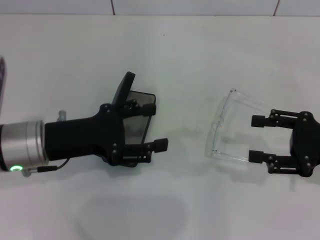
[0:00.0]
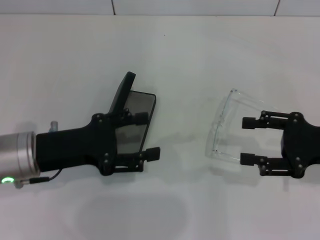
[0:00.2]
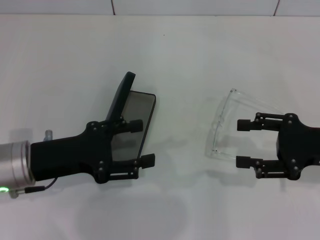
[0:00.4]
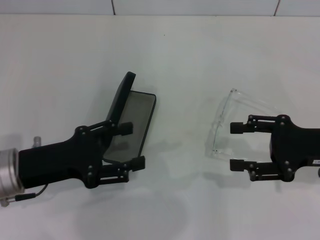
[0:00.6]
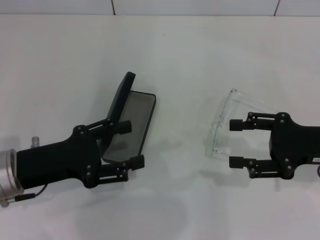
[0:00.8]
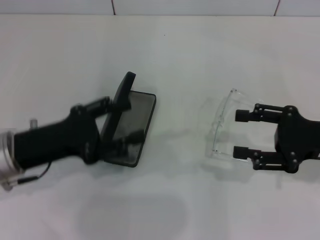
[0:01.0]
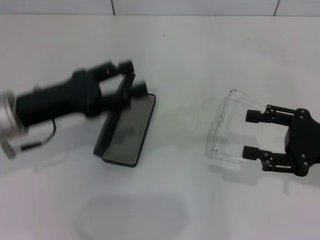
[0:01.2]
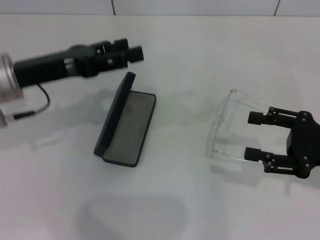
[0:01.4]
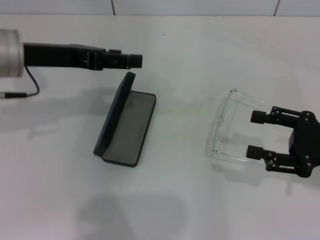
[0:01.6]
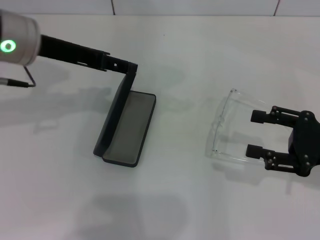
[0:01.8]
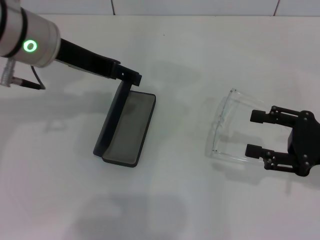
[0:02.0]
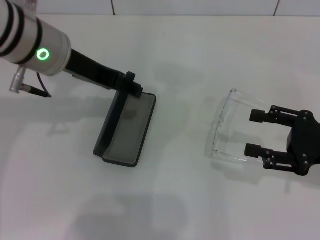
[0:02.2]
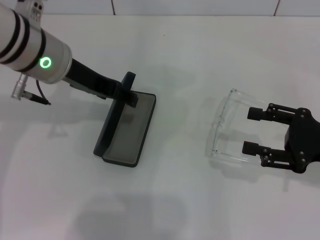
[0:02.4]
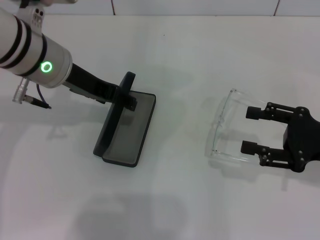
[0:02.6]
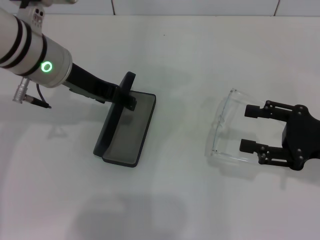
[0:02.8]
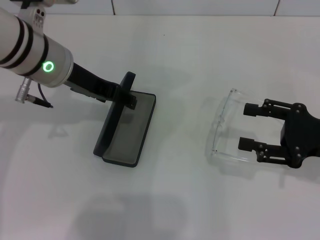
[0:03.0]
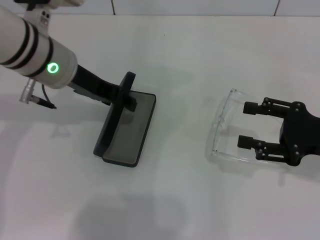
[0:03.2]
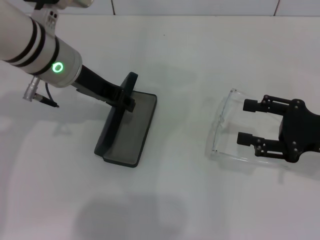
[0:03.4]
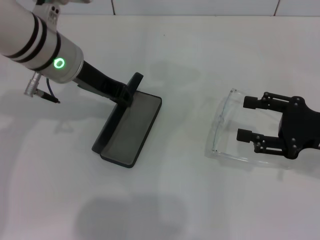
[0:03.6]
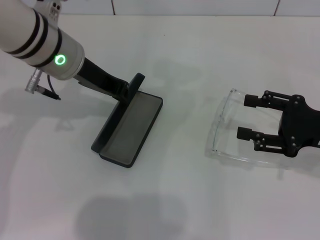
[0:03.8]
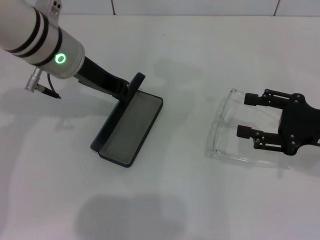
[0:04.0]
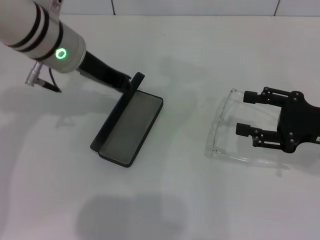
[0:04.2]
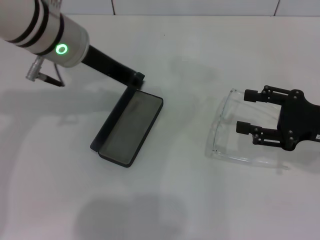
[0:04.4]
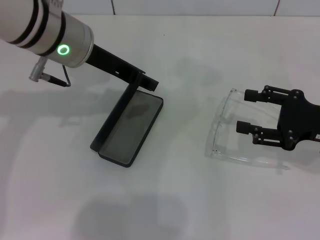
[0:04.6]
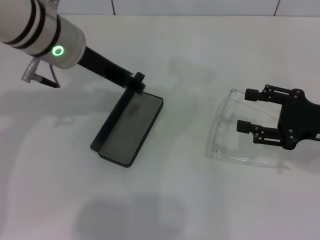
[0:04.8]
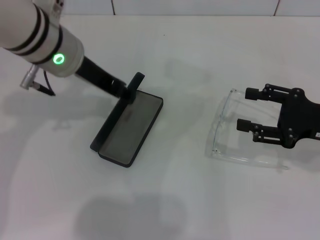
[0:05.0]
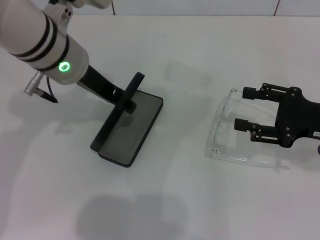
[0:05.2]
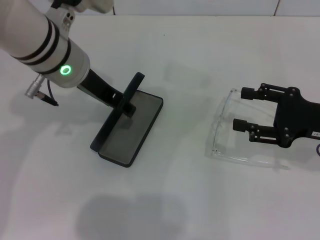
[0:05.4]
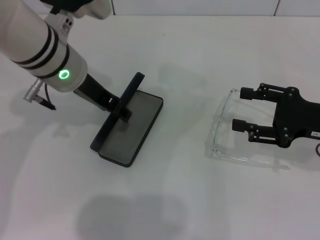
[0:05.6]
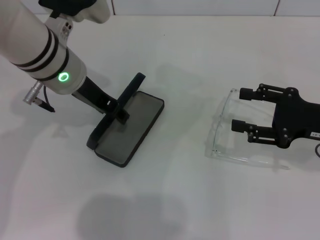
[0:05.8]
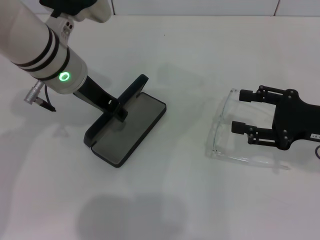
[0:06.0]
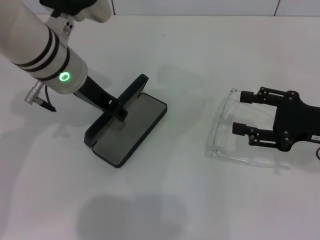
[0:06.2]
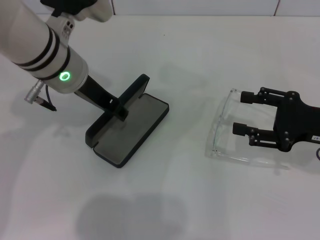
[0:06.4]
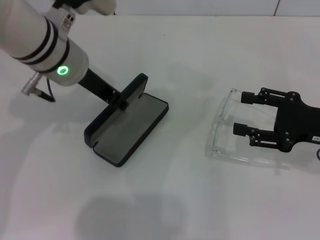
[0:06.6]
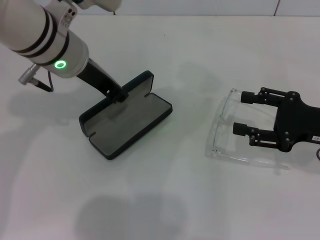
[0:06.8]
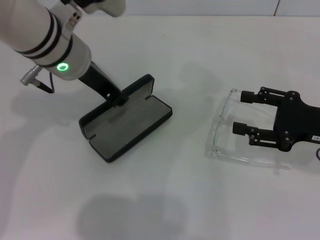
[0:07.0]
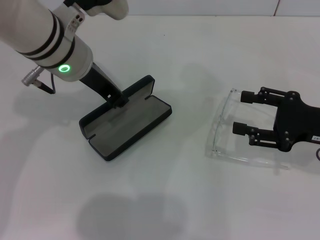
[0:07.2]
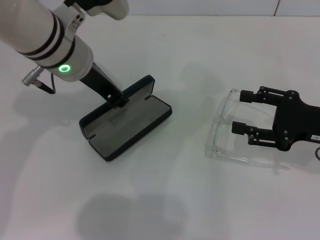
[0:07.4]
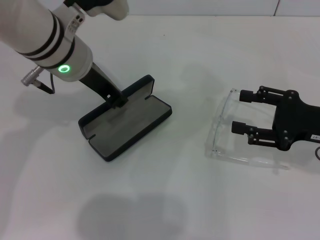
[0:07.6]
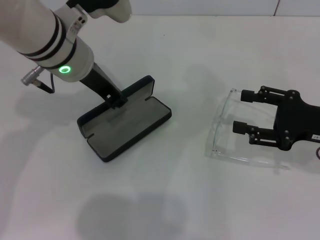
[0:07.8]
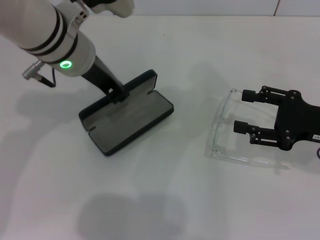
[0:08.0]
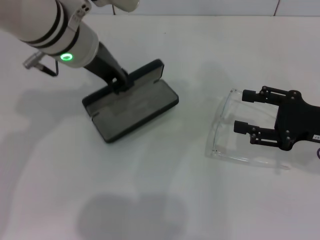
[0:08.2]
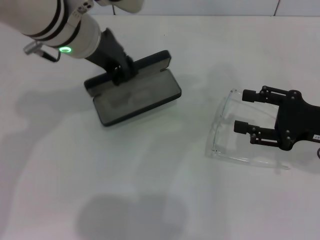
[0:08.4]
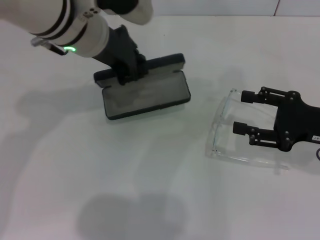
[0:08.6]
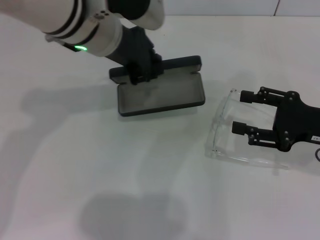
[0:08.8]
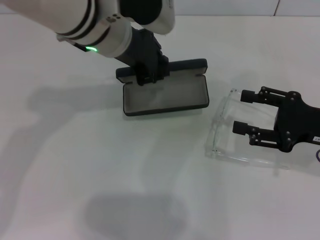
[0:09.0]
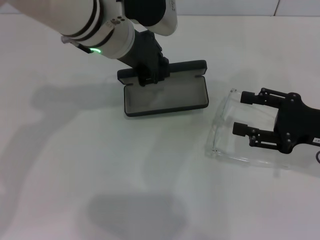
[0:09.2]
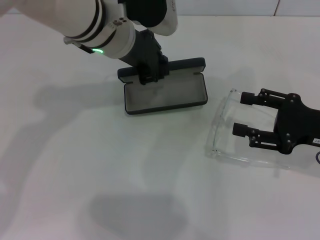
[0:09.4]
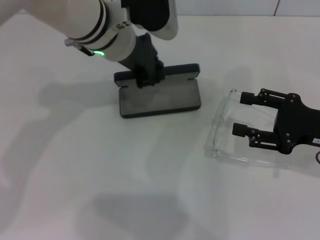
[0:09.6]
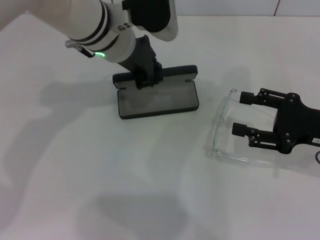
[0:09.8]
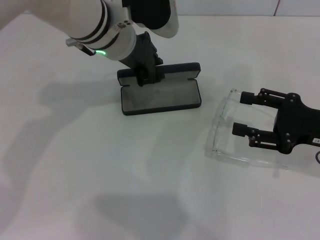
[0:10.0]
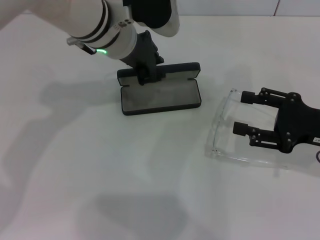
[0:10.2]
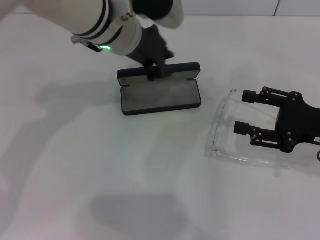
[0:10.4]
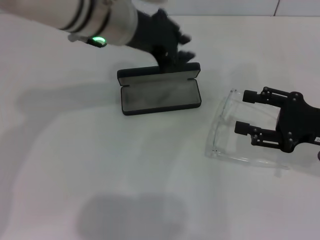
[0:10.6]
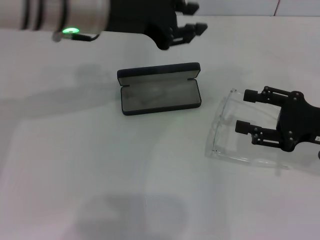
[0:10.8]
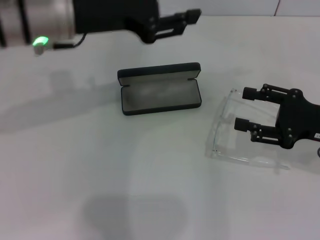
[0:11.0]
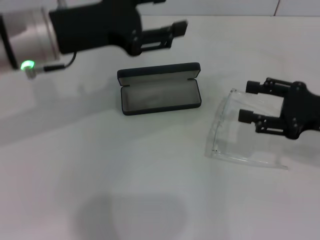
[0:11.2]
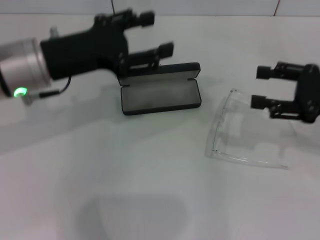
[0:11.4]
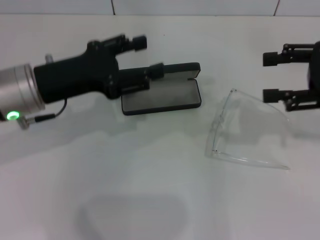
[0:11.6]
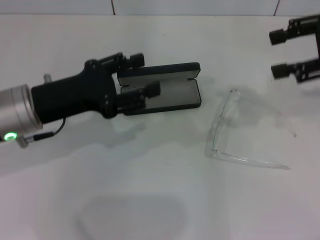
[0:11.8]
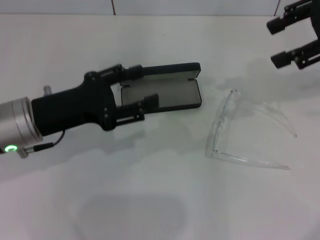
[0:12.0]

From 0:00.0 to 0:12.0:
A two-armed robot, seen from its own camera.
Step, from 0:00.0 to 0:07.6: Grab the glasses case with your left hand.
Step, from 0:07.8 to 0:10.0: Place the glasses case in the center of the table with your left hand.
From 0:00.0 to 0:01.6: The left gripper is displaced upward and forward by about 10 cm.
From 0:01.6 to 0:03.0: The left gripper heads to the right, covering approximately 5 cm.
From 0:03.0 to 0:04.4: The left gripper closes up.
From 0:04.4 to 0:06.0: The left gripper opens its fingers.
From 0:06.0 to 0:07.6: The left gripper closes its fingers.
From 0:09.0 to 0:10.4: The grippers make only small movements.
From 0:10.4 to 0:12.0: The right gripper shifts approximately 20 cm upward and forward. The left gripper goes about 20 cm to the left, backward and downward, and opens.

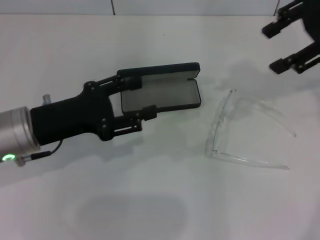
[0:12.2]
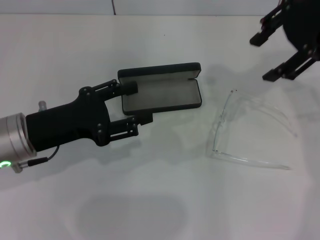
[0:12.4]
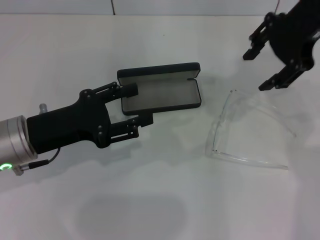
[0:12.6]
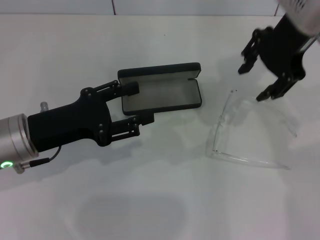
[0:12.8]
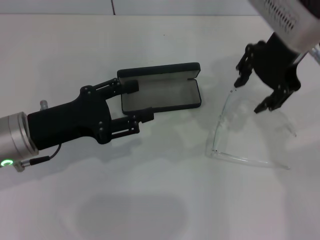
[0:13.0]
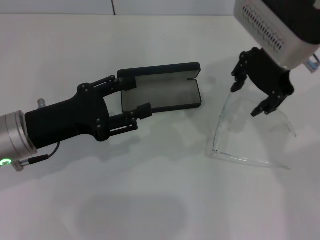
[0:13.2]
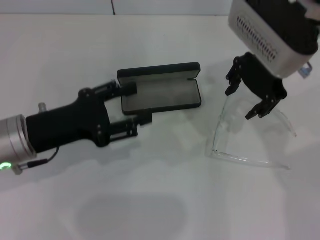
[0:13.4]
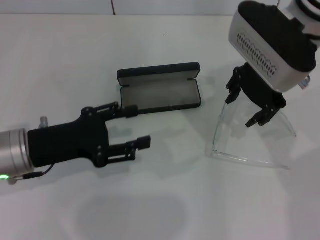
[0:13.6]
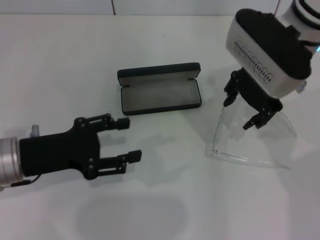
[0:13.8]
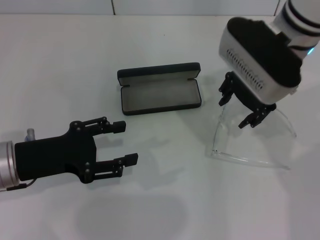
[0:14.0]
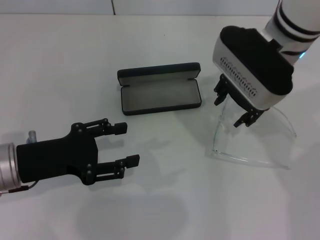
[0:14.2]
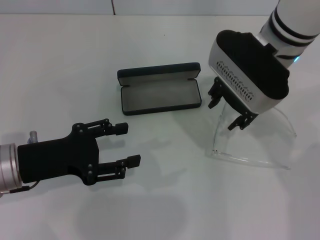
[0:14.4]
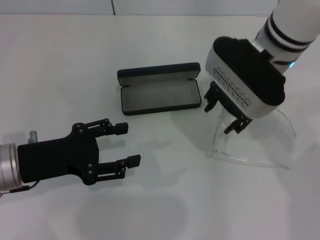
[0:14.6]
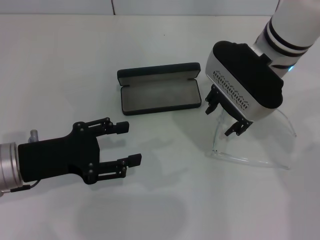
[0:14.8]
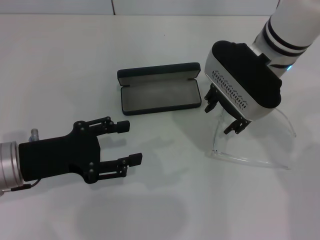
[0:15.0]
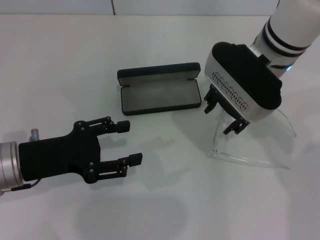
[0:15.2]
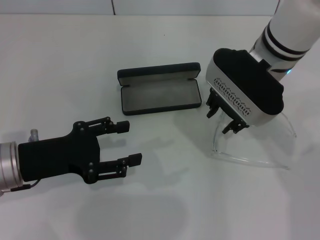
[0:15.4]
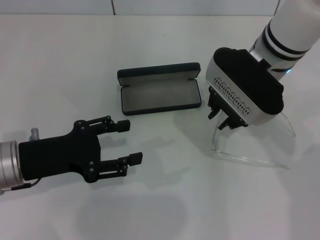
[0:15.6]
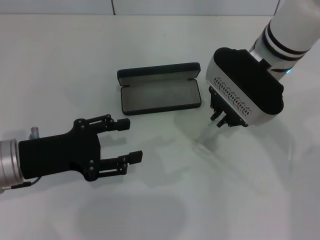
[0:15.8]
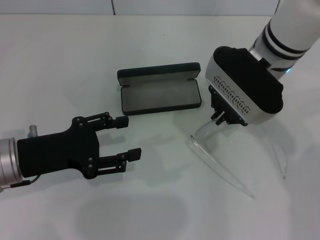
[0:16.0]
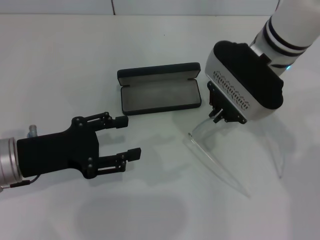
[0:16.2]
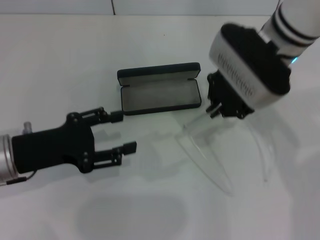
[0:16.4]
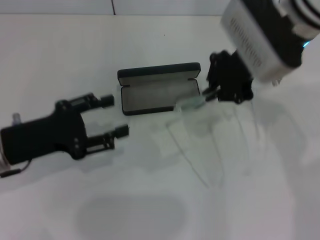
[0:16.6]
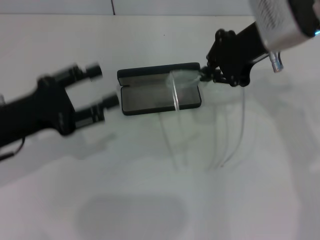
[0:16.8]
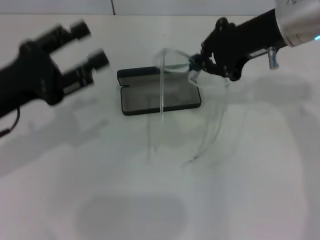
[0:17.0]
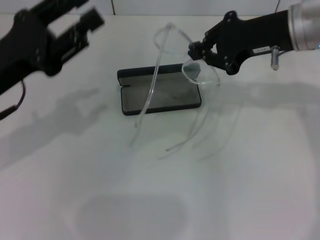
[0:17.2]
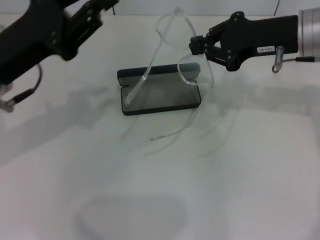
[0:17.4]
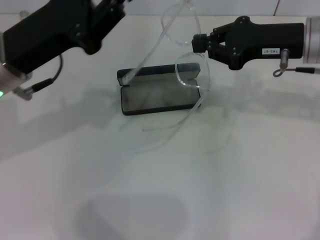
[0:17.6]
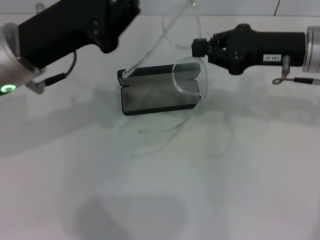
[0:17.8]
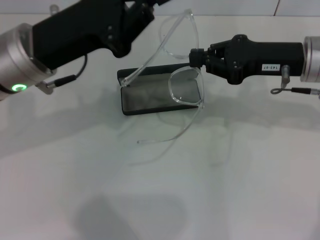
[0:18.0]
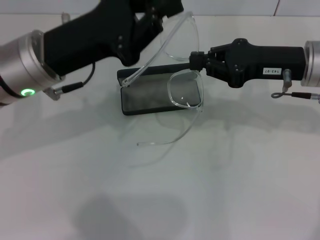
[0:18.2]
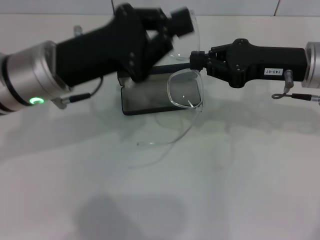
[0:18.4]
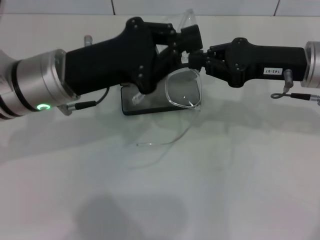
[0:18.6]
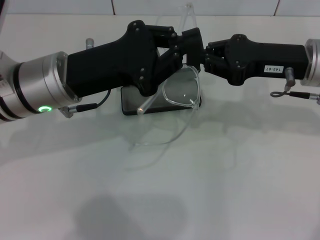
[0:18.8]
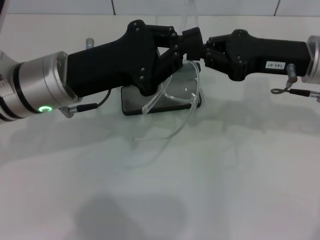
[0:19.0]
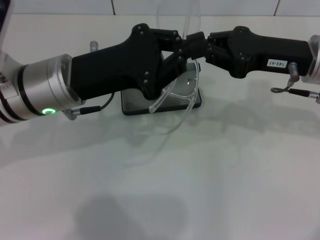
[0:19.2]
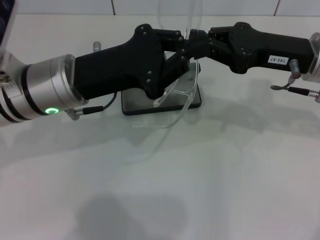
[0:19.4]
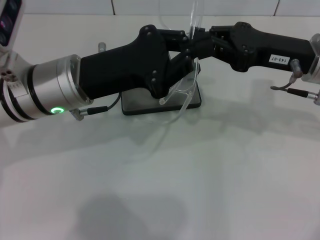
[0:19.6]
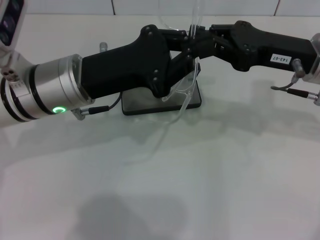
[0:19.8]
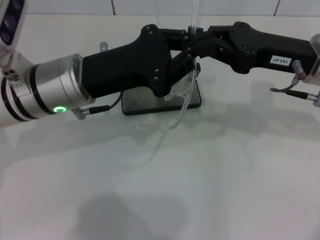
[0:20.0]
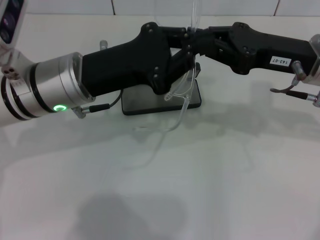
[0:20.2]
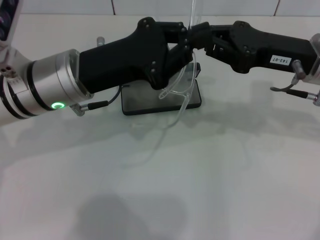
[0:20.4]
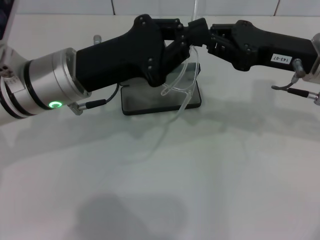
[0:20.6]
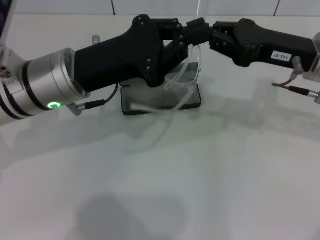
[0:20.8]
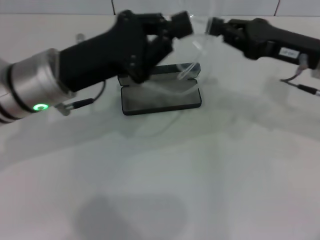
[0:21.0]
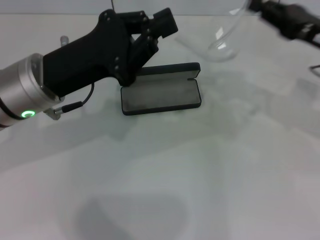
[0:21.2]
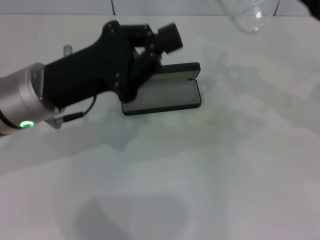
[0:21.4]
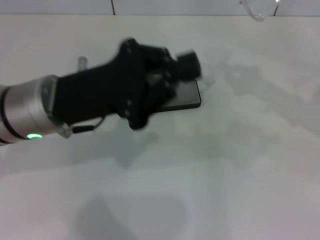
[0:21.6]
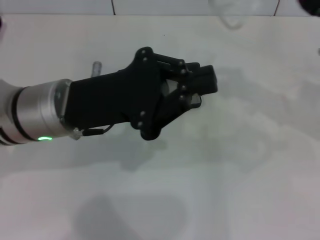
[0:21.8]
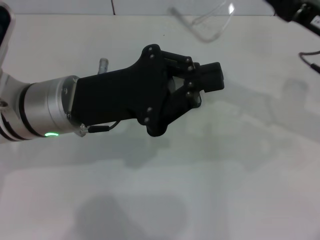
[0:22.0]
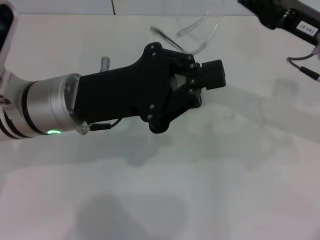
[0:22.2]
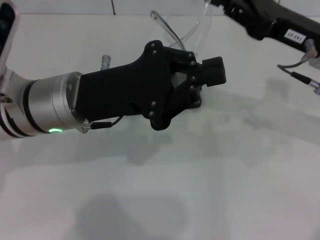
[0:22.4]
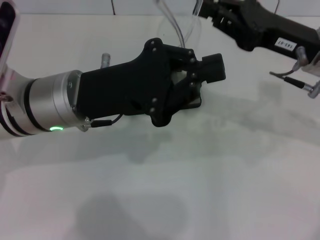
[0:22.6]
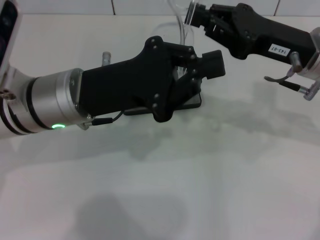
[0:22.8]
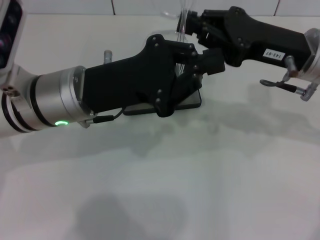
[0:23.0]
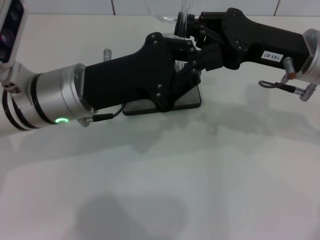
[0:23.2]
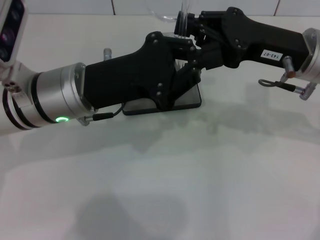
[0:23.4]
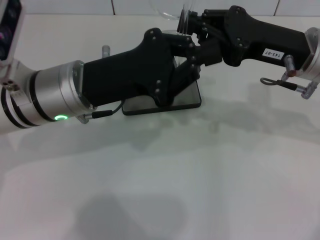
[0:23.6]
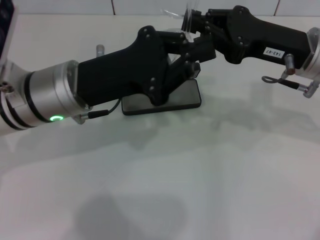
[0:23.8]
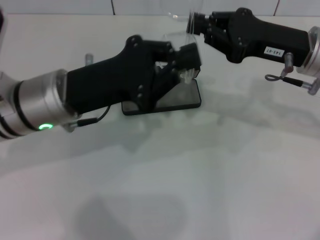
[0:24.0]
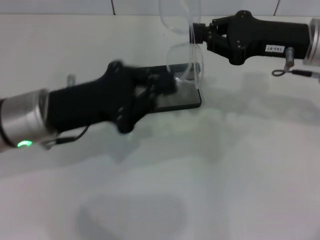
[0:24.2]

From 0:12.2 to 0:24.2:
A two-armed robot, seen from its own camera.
Step, from 0:12.2 to 0:16.0: Grab the eyeglass frame with your right hand.
Step, from 0:16.2 to 0:23.4: Lift the glasses with your right hand.
From 0:12.2 to 0:13.8: The right gripper travels to the left and downward by roughly 15 cm.
From 0:13.8 to 0:15.2: The grippers make only small movements.
From 0:15.2 to 0:16.6: The right gripper closes up.
From 0:16.6 to 0:18.2: The left gripper goes about 10 cm to the right, forward and upward, and closes its fingers. The right gripper travels to the right and downward by roughly 10 cm.
From 0:19.8 to 0:21.2: The right gripper heads to the right, covering some 5 cm.
From 0:21.2 to 0:22.6: The right gripper goes roughly 5 cm to the left.
From 0:22.6 to 0:24.2: The left gripper moves roughly 5 cm.
